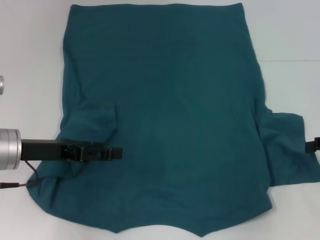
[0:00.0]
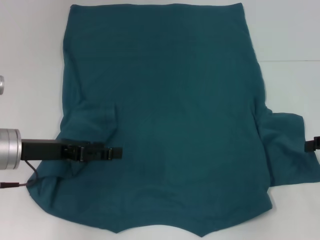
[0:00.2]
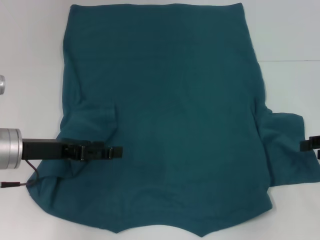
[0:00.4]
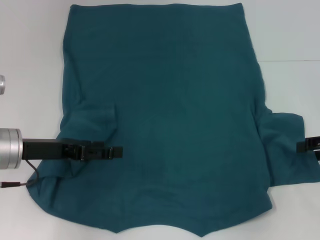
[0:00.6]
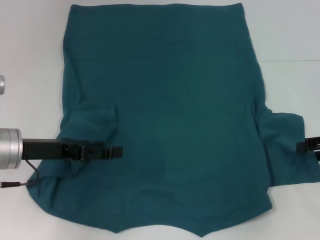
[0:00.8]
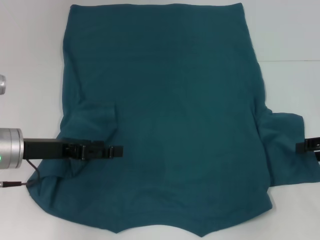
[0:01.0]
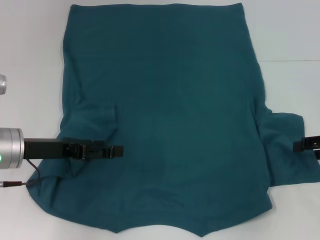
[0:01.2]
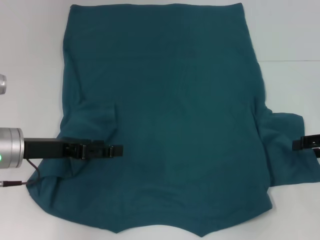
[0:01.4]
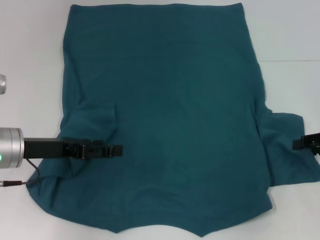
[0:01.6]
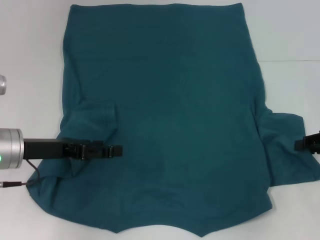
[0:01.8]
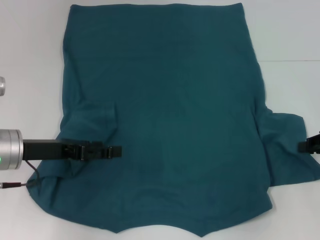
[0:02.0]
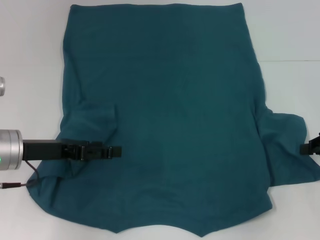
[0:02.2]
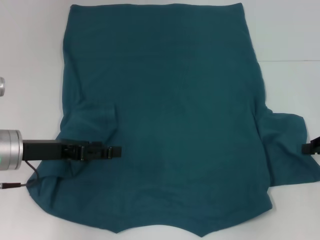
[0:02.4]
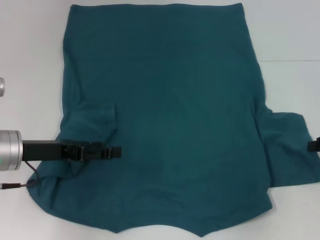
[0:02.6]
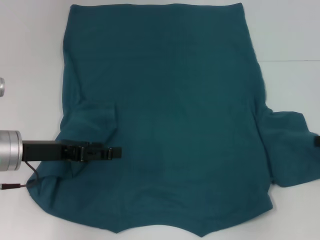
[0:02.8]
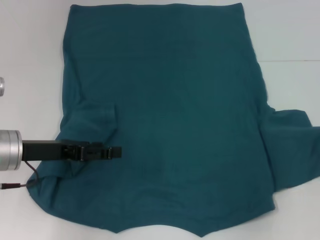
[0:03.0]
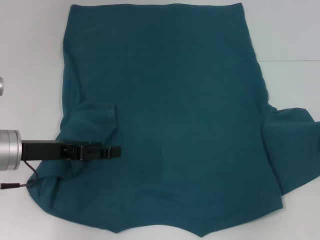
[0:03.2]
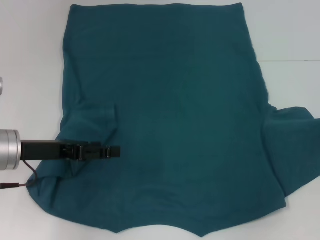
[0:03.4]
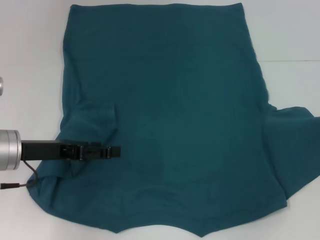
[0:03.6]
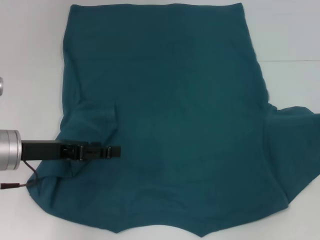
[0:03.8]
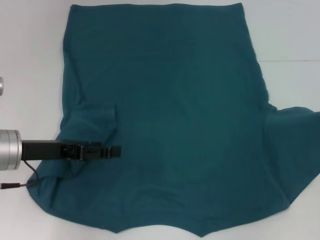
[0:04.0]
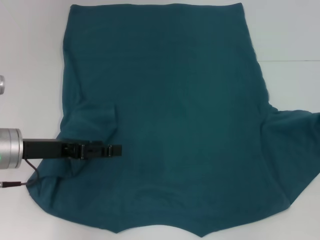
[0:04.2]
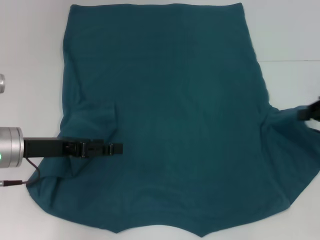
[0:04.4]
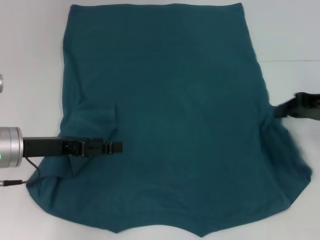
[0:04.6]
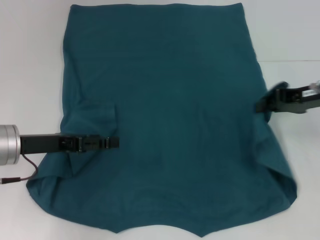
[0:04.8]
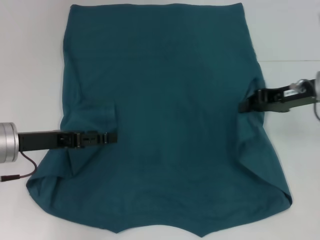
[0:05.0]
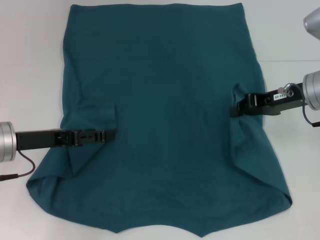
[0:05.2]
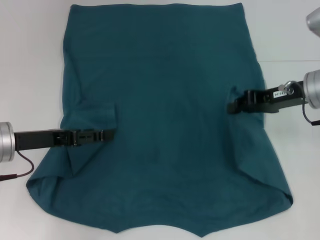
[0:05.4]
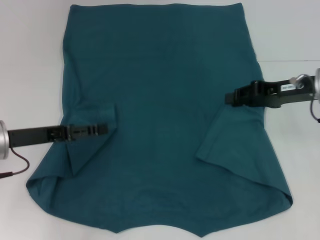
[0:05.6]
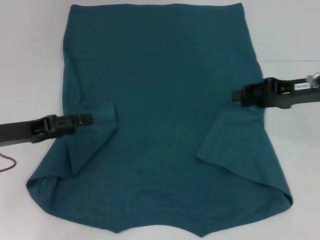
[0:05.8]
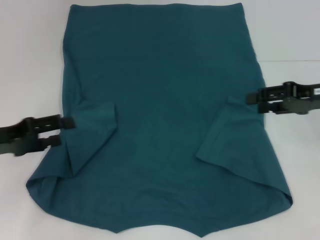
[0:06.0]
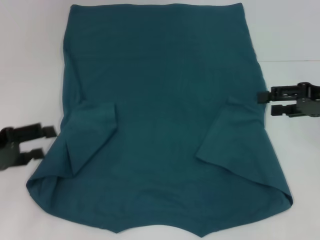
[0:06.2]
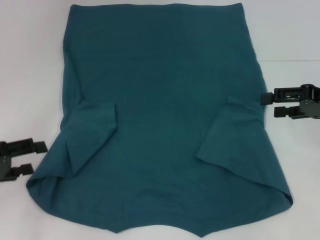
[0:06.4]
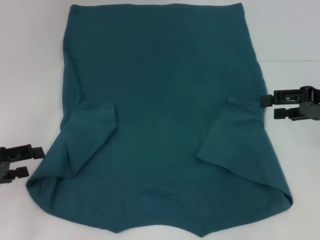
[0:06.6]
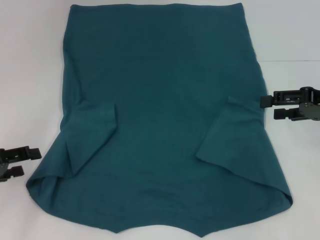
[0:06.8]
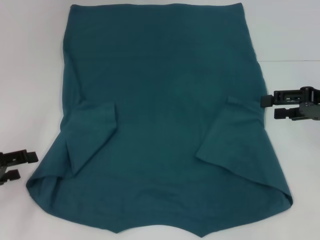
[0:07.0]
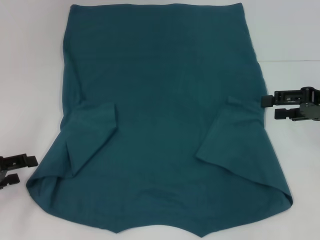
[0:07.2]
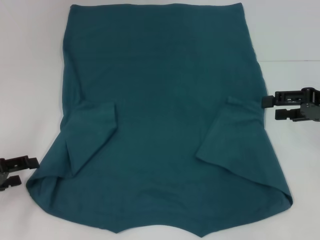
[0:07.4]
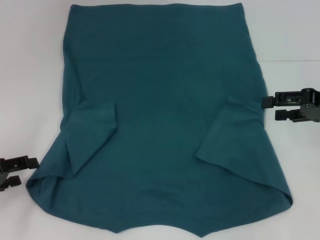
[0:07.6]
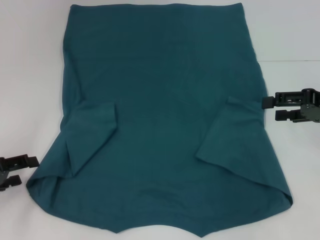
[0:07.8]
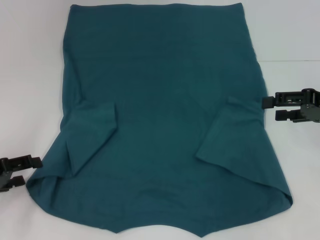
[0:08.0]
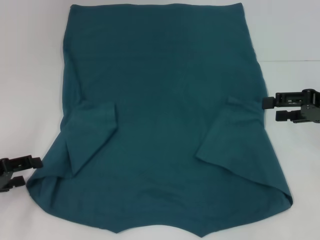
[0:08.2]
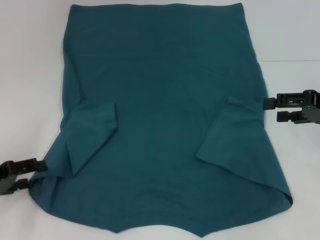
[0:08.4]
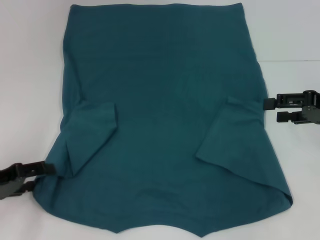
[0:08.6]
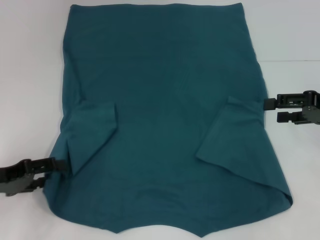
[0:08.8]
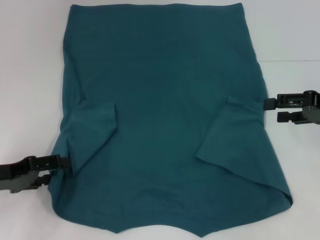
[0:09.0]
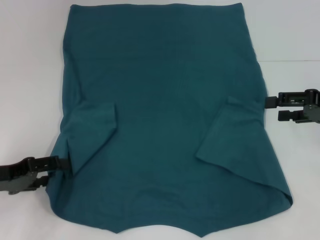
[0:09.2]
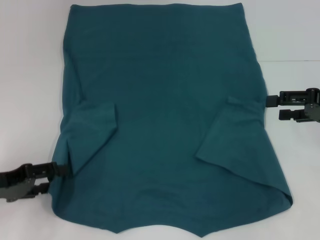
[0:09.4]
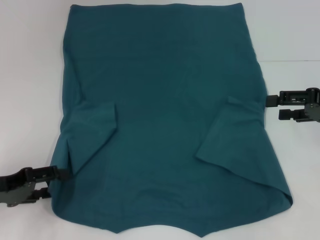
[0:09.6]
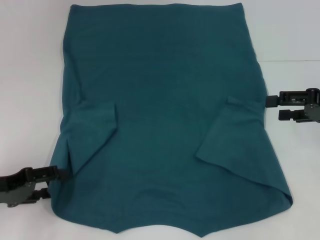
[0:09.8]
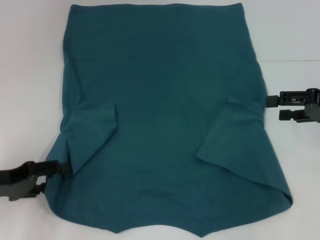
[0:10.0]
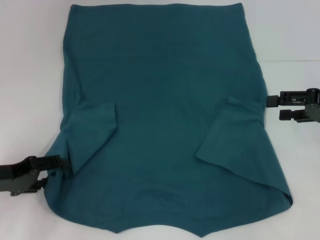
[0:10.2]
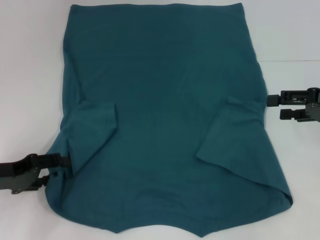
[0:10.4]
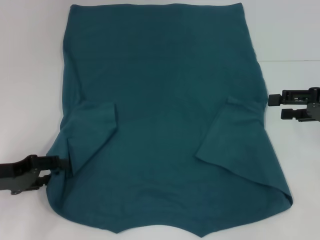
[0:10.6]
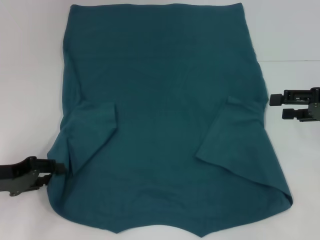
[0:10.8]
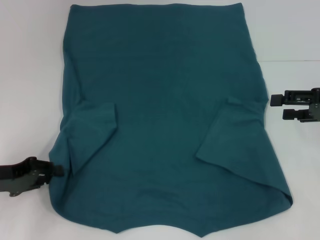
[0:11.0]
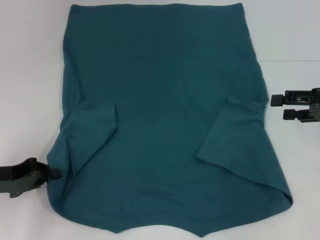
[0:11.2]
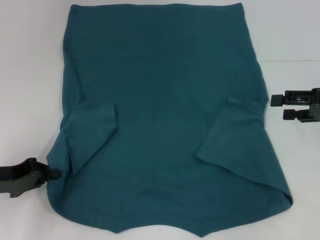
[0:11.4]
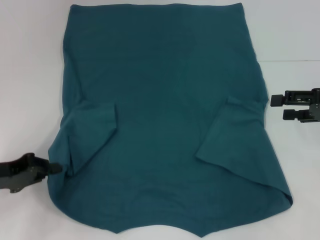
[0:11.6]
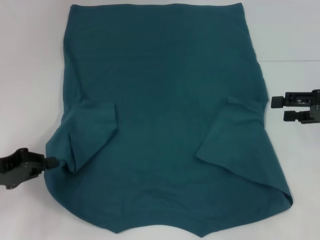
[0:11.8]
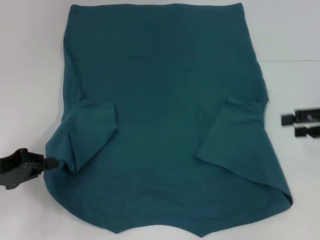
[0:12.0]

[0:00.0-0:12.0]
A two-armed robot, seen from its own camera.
Step, 0:00.0 to 0:05.8: Fold the bottom right sleeve to the right.
Step, 0:06.0 to 0:11.8: Grab the bottom left corner with your left hand.
0:00.0 to 0:01.6: The grippers make only small movements.
0:01.6 to 0:03.0: The right gripper closes up.
0:03.0 to 0:04.4: The right gripper changes place by some 5 cm.
0:04.4 to 0:06.0: The left gripper is displaced to the left by some 5 cm, while the right gripper opens its fingers.
0:06.0 to 0:07.6: The left gripper ends up some 5 cm from where it was, while the right gripper opens its fingers.
0:07.6 to 0:10.4: The grippers move only a little.
0:10.4 to 0:12.0: The left gripper closes its fingers.

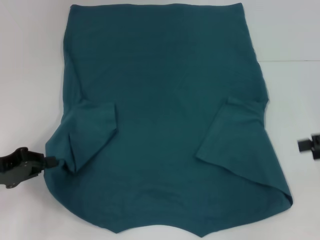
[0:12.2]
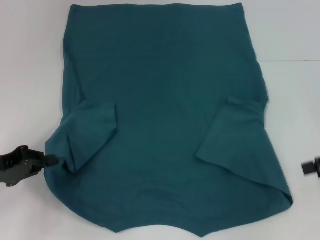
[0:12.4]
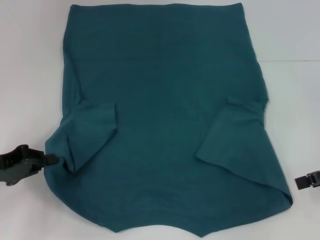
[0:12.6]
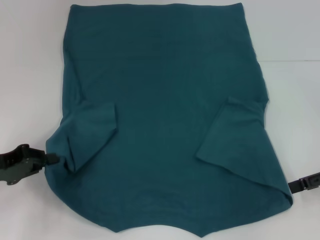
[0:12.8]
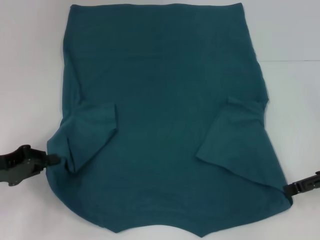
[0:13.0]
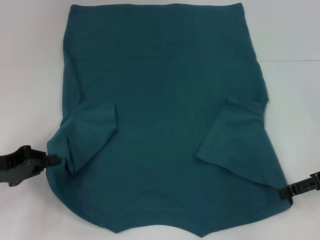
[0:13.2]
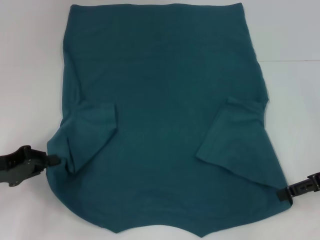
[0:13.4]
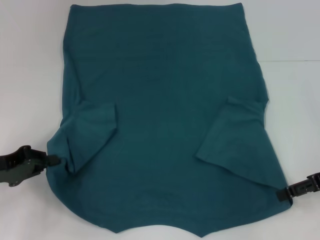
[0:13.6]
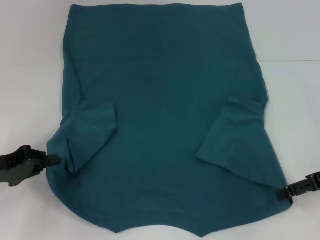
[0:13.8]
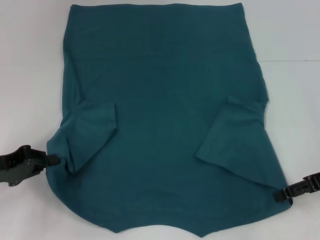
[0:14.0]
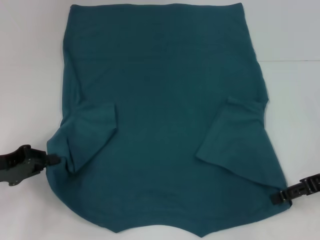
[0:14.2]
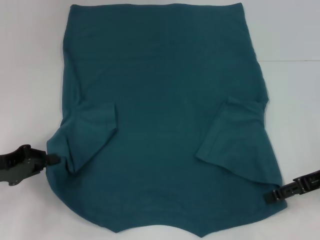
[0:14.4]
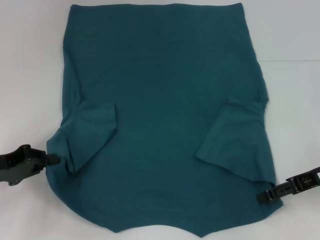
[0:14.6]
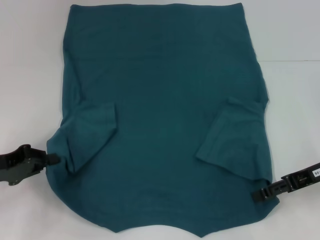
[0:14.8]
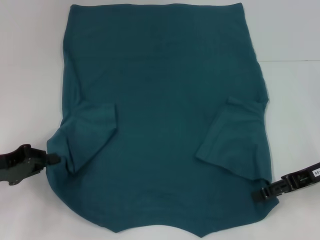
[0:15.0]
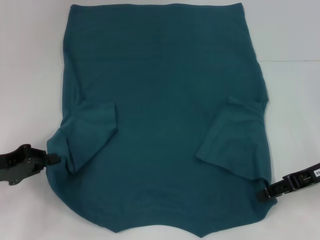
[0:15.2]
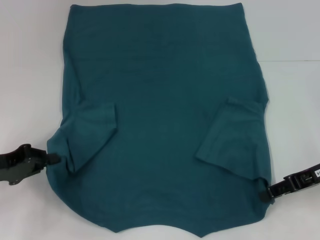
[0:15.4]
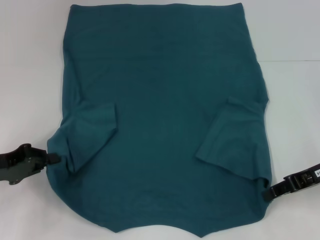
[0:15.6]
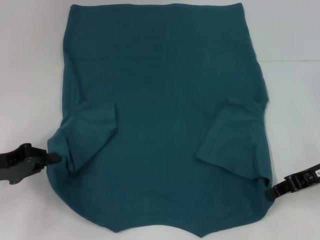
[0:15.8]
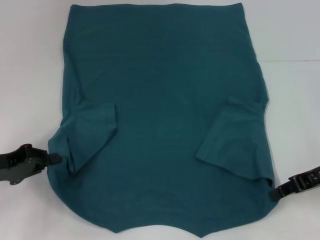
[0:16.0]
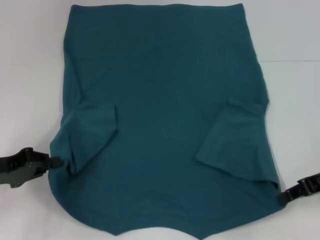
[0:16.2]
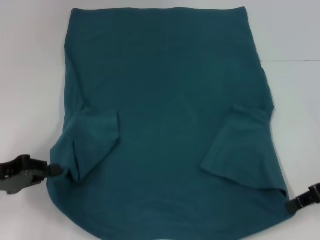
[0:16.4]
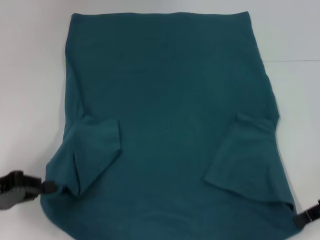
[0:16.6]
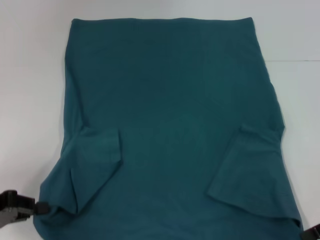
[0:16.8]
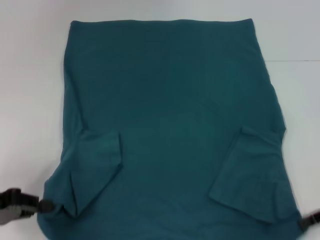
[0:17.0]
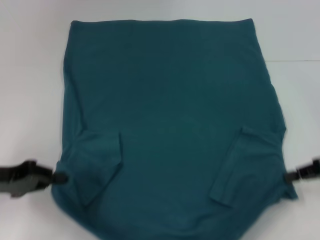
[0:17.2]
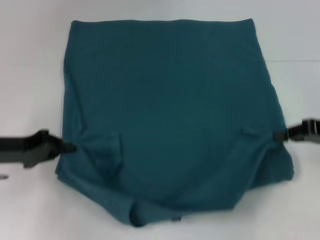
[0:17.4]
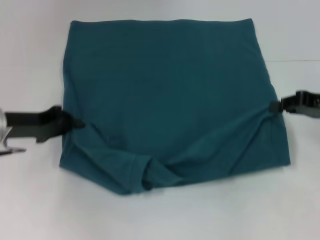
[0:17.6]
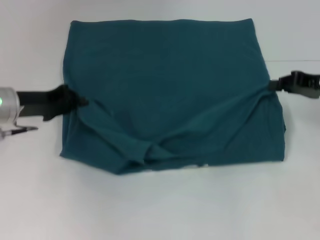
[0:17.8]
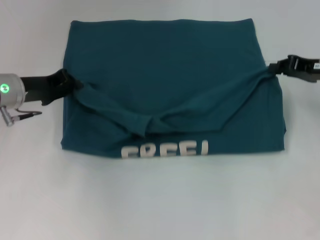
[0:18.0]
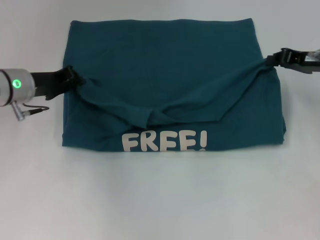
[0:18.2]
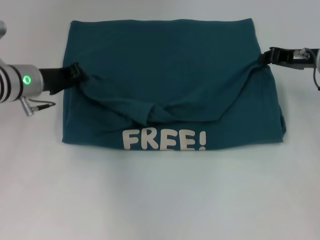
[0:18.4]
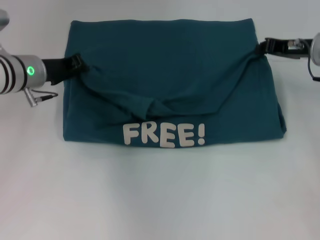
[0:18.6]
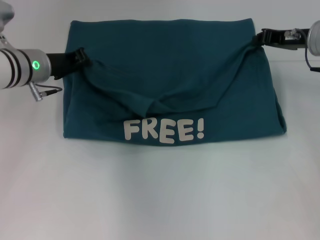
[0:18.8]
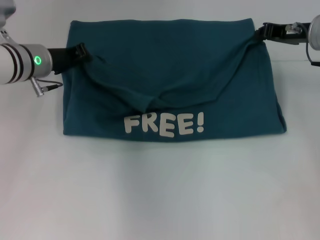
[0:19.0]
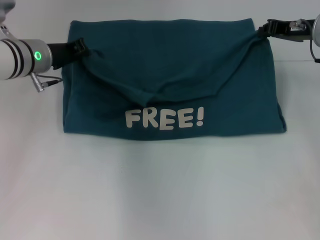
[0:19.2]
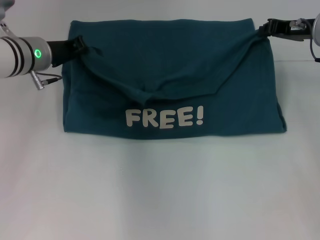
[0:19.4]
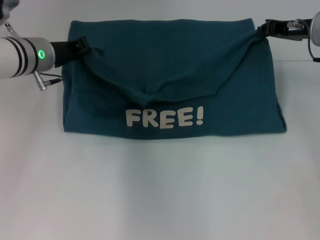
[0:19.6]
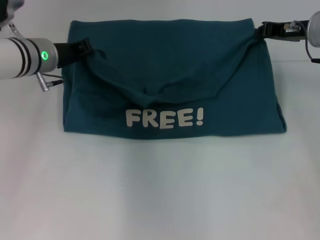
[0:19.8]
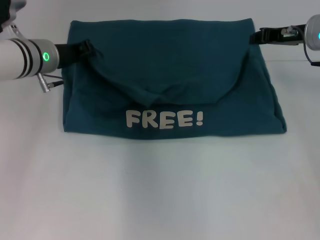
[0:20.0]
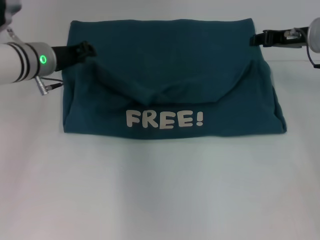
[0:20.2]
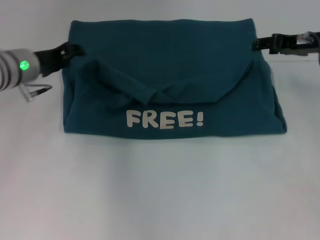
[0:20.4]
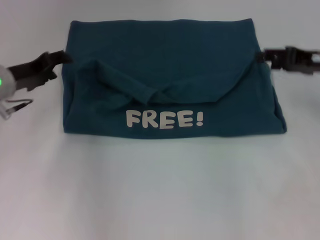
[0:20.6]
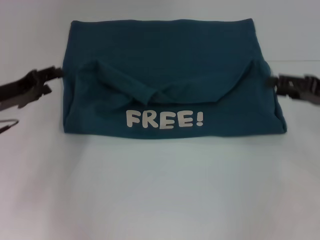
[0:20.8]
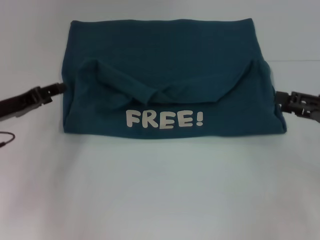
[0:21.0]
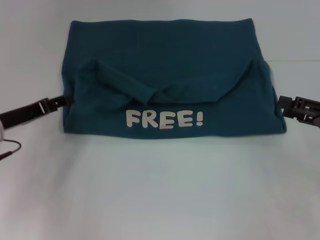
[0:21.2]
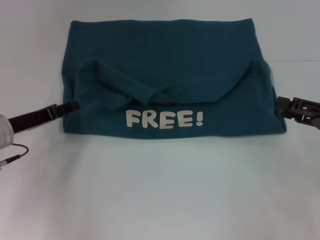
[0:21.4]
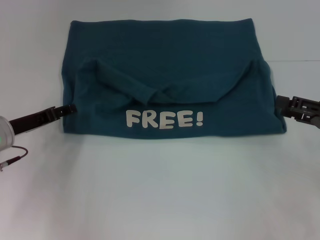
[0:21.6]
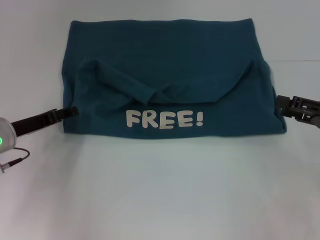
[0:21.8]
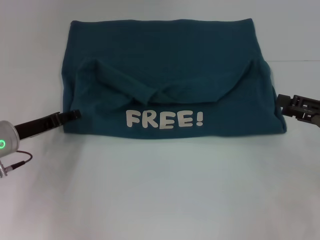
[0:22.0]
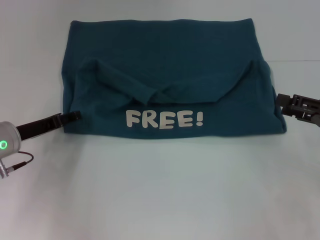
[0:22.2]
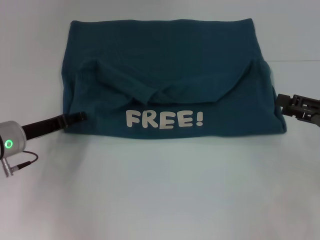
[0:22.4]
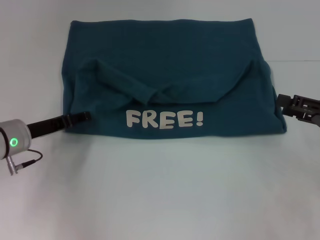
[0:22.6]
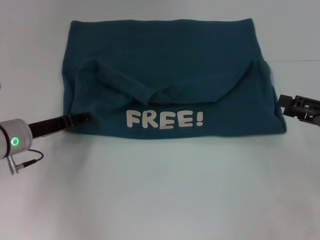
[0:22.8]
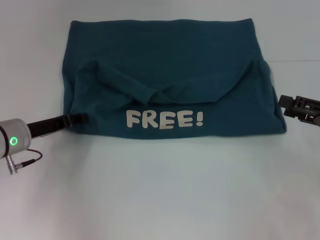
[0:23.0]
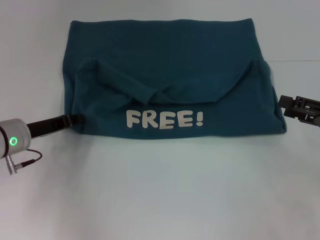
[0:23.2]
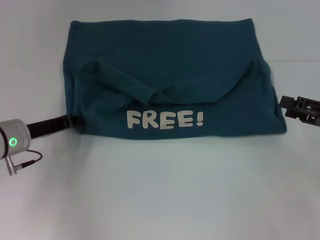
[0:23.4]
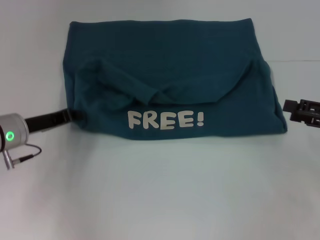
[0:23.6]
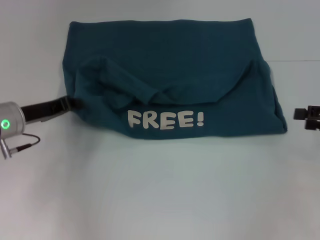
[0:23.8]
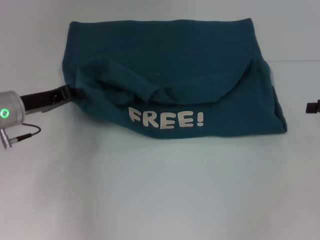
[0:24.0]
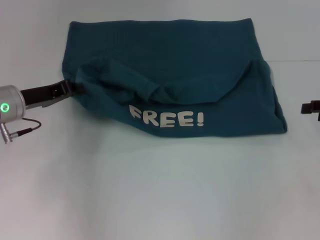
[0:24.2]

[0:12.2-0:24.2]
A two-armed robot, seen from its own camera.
Step, 0:12.2 to 0:16.4: Grab the bottom right corner with your right hand.
Step, 0:16.6 to 0:20.0: Fold the clothes to the left.
Step, 0:16.6 to 0:20.0: Fold the clothes to the right.
0:12.2 to 0:13.8: The right gripper shifts by roughly 5 cm.
0:13.8 to 0:15.2: The grippers make only small movements.
0:15.2 to 0:16.6: The right gripper closes its fingers.
0:16.6 to 0:18.2: The left gripper moves forward and to the right, approximately 20 cm, while the right gripper goes some 15 cm forward.
0:18.2 to 0:19.8: The right gripper moves about 5 cm, while the left gripper changes place by some 5 cm.
0:19.8 to 0:21.2: The right gripper moves backward and to the right, about 20 cm, and opens its fingers, while the left gripper travels backward, to the left and downward by about 15 cm, and opens.
0:21.2 to 0:22.6: The grippers stay close to where they were, moving slightly.
0:22.6 to 0:24.2: The left gripper shifts some 5 cm upward, and closes its fingers. Meanwhile the right gripper shifts by some 5 cm.
